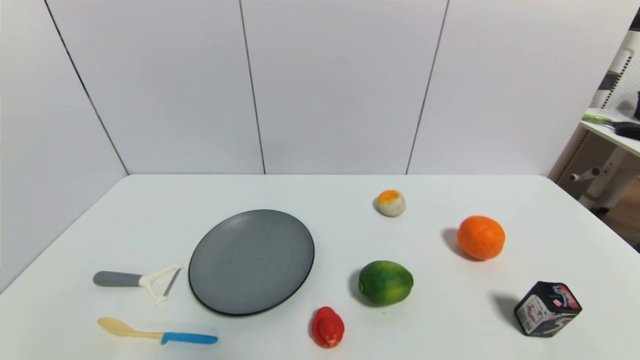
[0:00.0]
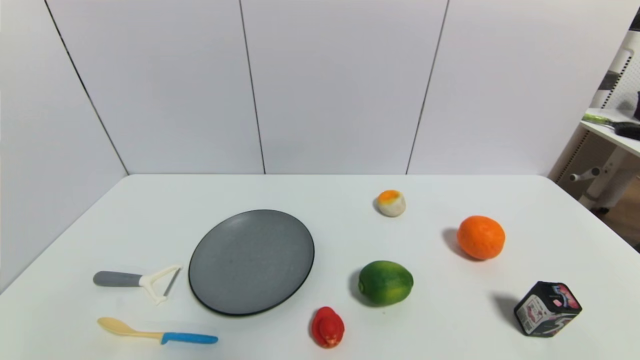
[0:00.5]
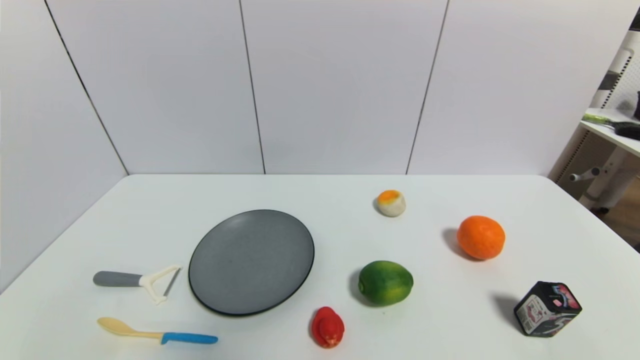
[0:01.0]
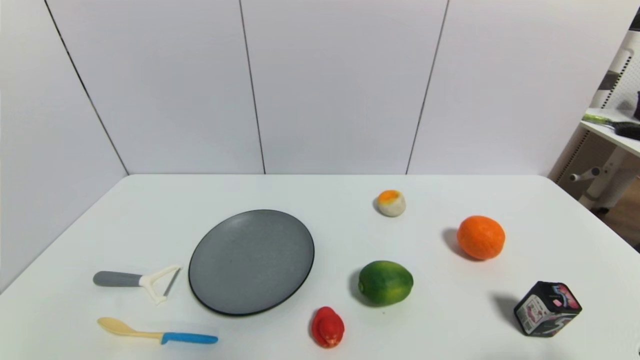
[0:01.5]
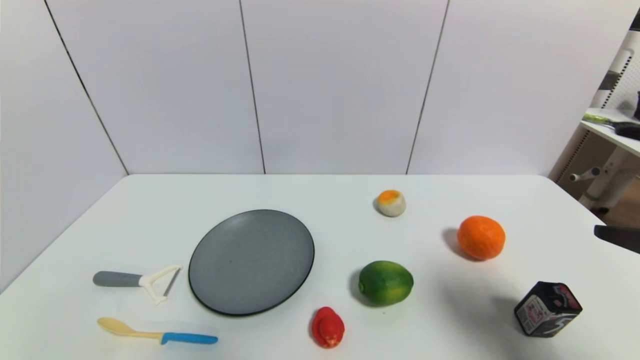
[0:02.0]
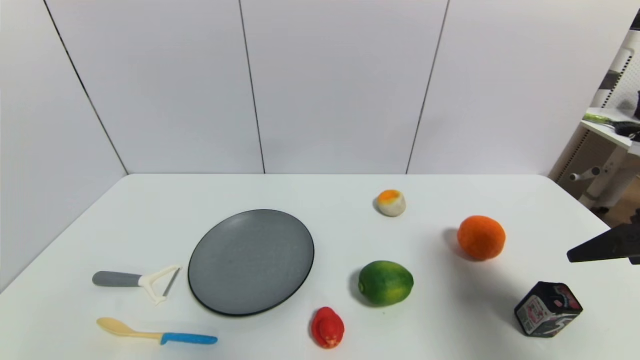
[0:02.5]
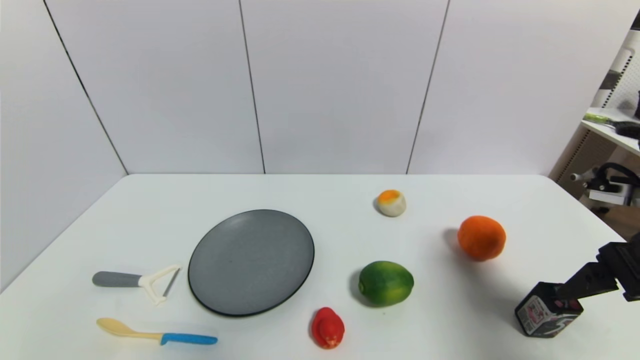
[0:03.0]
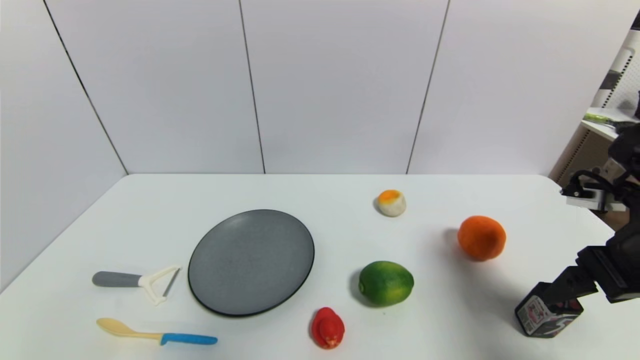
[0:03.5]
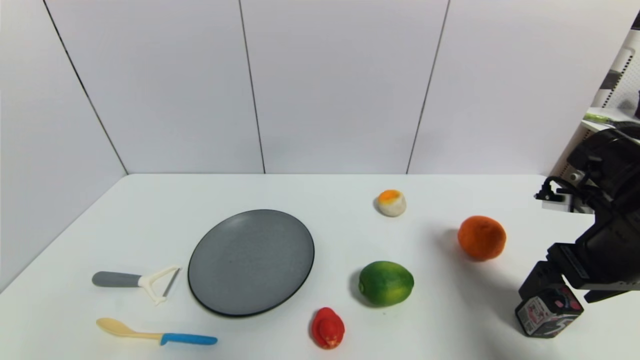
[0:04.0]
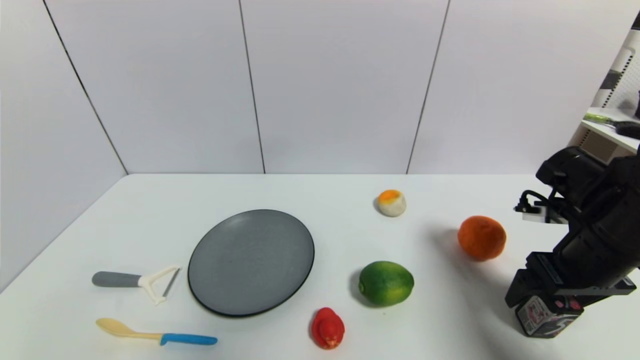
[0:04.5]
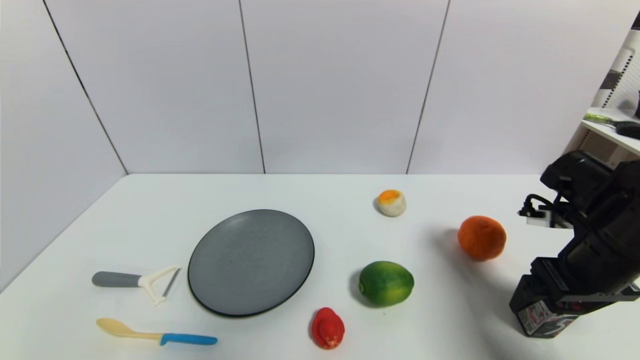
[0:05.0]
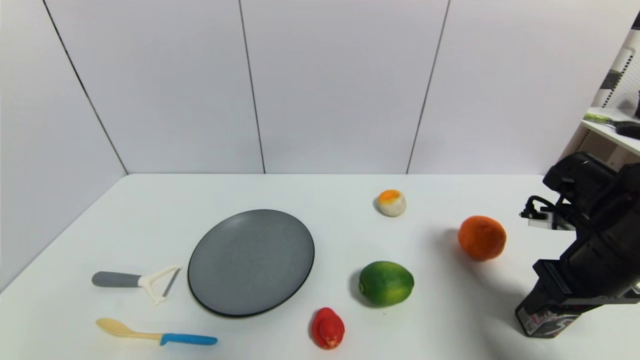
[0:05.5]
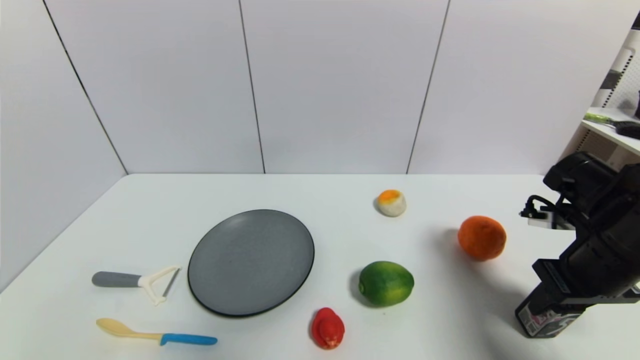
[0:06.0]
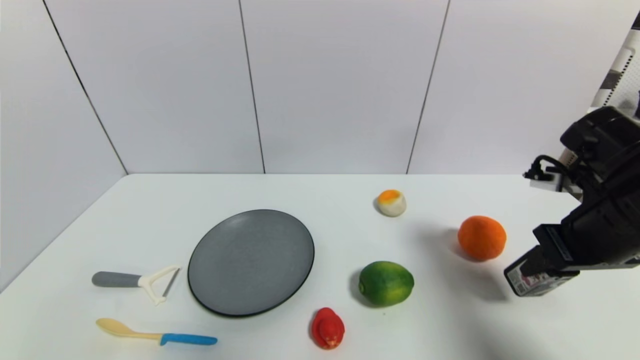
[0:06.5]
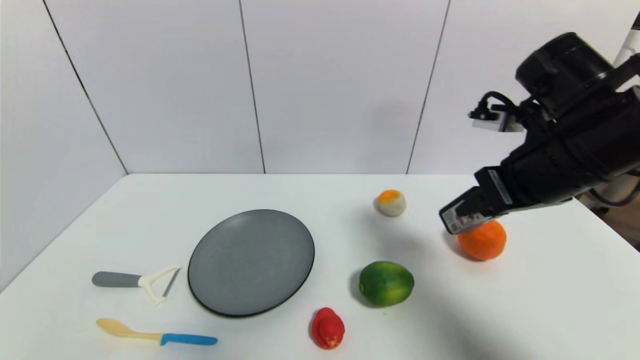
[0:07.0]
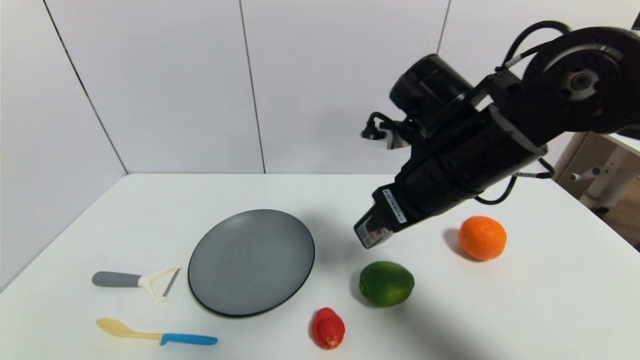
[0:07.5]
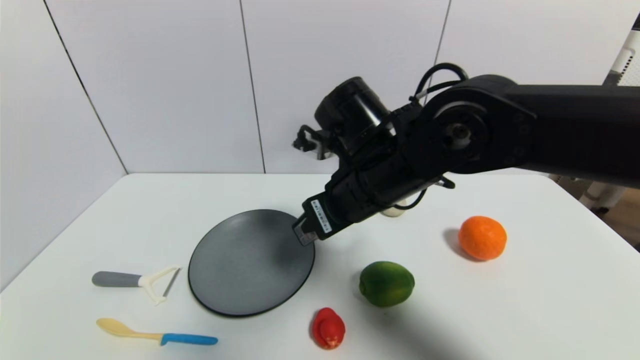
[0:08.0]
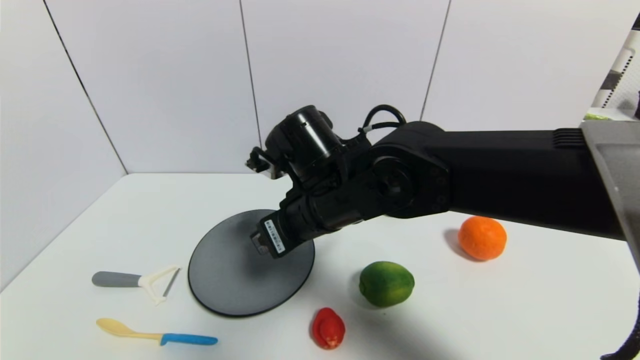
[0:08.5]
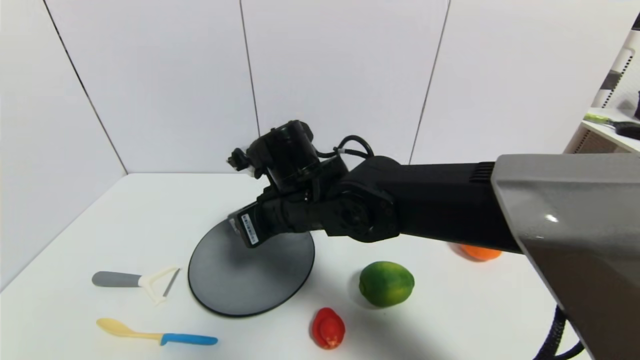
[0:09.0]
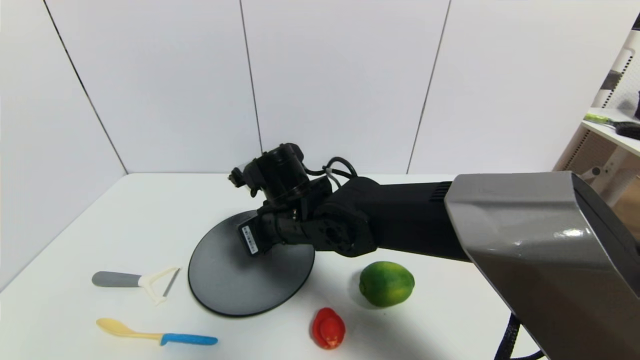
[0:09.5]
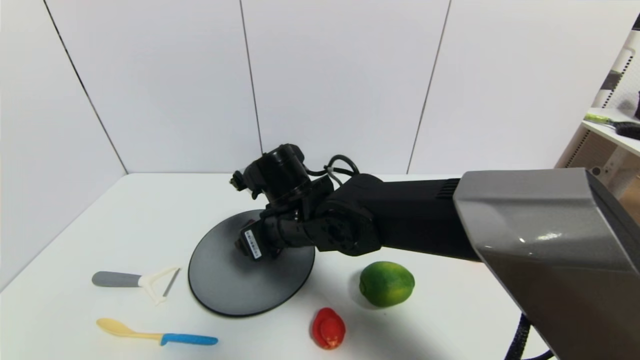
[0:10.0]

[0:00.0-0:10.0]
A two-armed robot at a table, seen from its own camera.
Task of the whole recording: use a gripper to pick the target object and place on the gray plate.
Step, 0:00.0 to 0:05.5: Grasp the square chewing gum with the right gripper.
Step, 0:06.0 to 0:09.5: Place the square chewing gum on the gray plate with the right gripper.
0:00.0 to 0:02.0: The right gripper travels upward and forward by approximately 25 cm.
0:02.0 to 0:04.0: The right gripper moves forward and downward, roughly 15 cm.
0:04.0 to 0:06.0: The right gripper closes its fingers.
0:06.0 to 0:08.0: The right gripper heads to the left, covering roughly 25 cm.
0:08.0 to 0:10.0: The right gripper is displaced to the left and downward by approximately 10 cm, and opens its fingers.

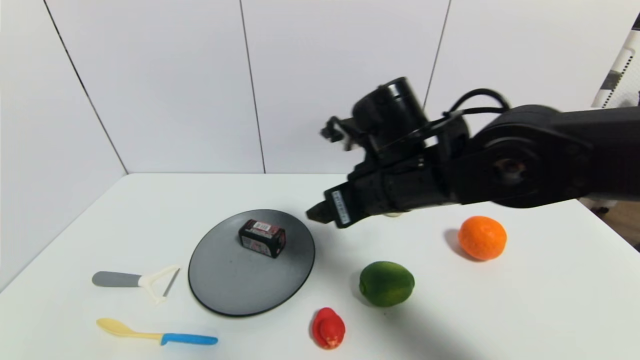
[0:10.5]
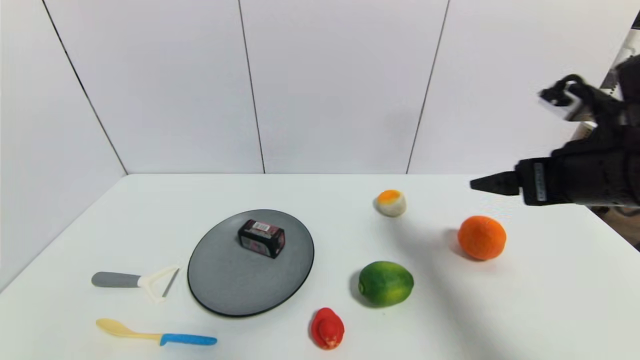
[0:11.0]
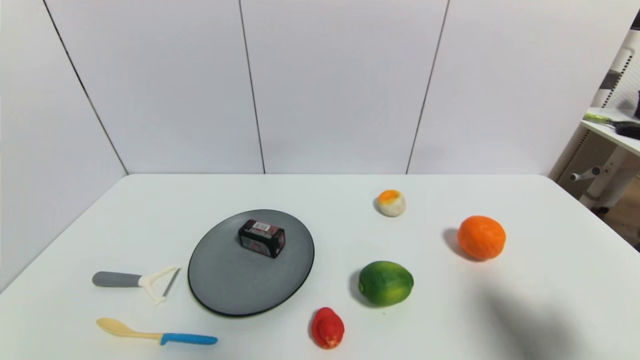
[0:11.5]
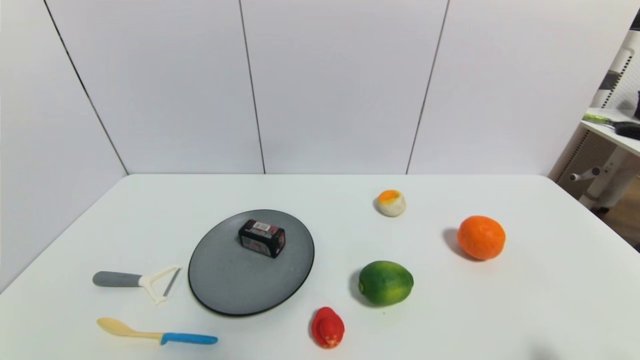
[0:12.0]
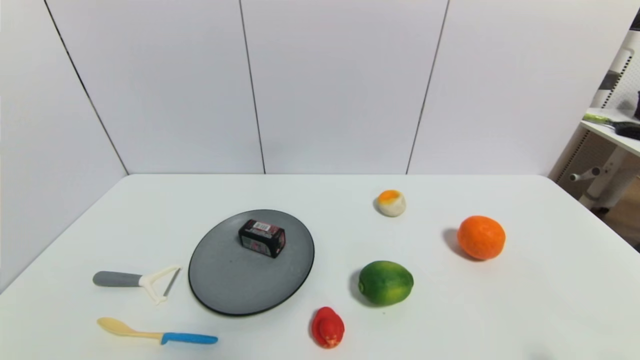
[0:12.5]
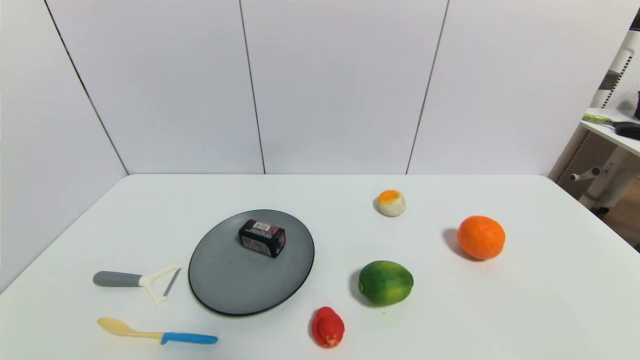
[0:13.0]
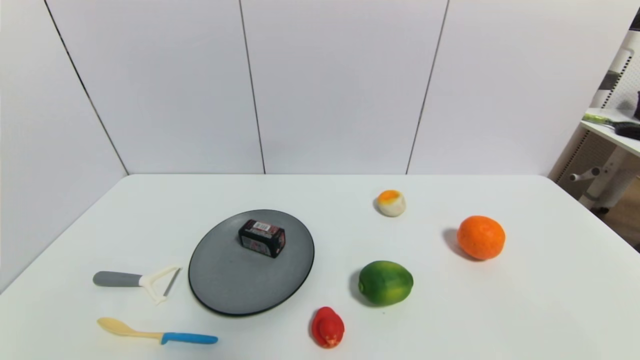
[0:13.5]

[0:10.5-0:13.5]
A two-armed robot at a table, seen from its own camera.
Task of the whole recording: use a gripper to pick the target object and place on the gray plate.
0:10.5 to 0:12.0: The right gripper is displaced backward and to the right by about 35 cm.
